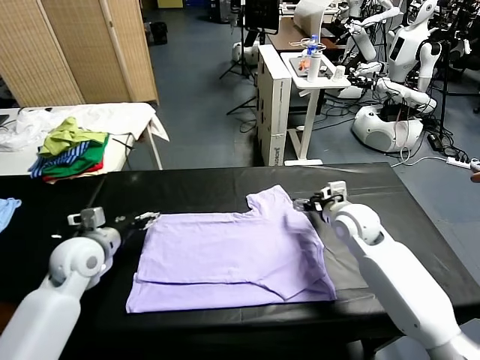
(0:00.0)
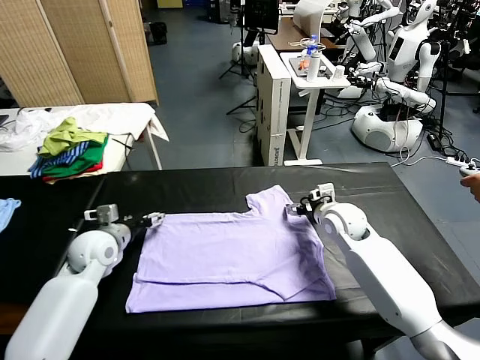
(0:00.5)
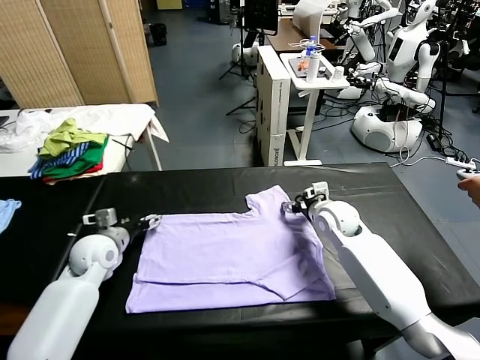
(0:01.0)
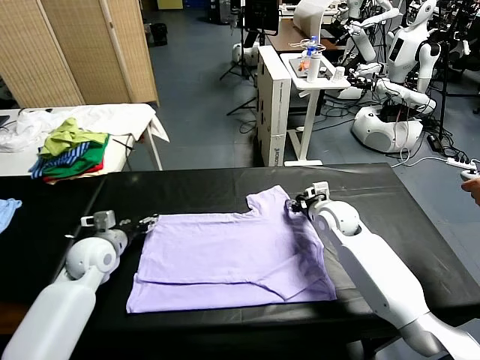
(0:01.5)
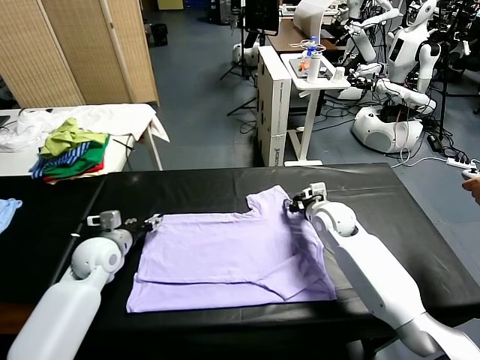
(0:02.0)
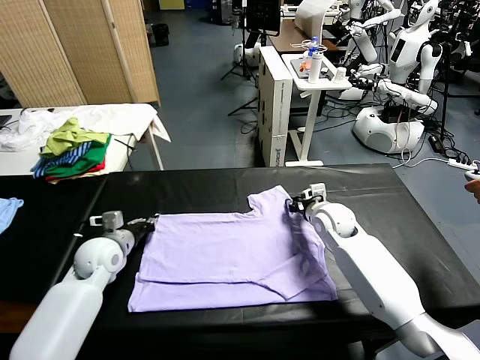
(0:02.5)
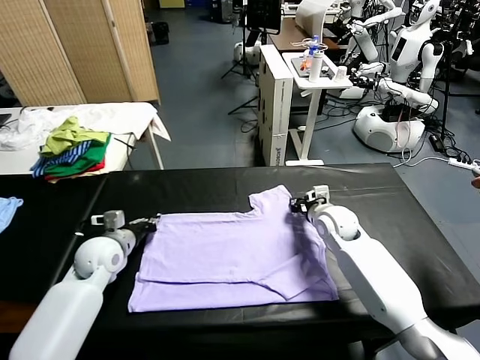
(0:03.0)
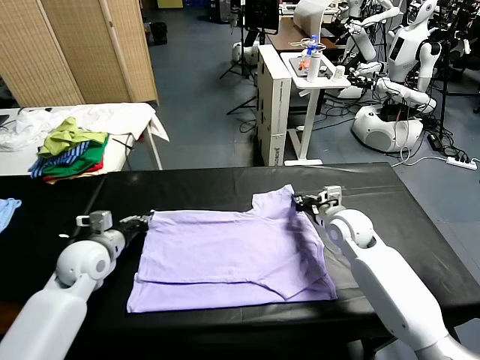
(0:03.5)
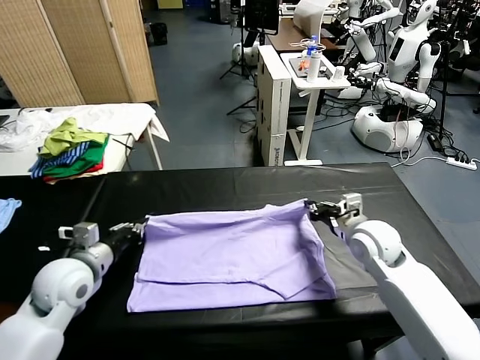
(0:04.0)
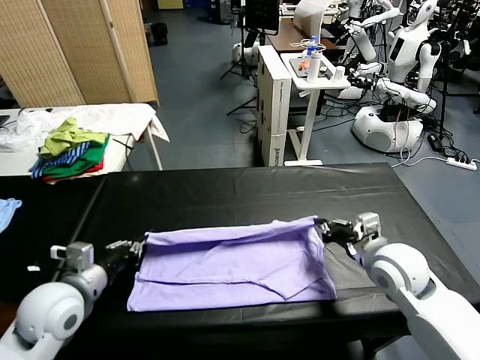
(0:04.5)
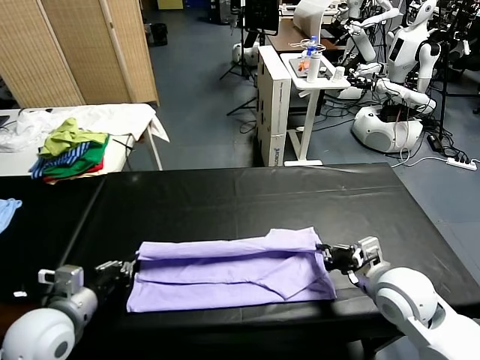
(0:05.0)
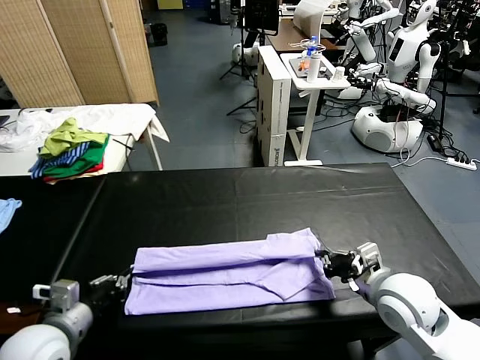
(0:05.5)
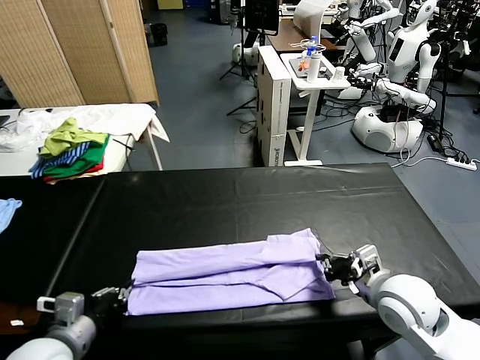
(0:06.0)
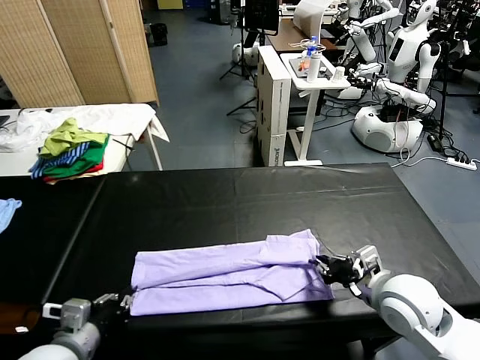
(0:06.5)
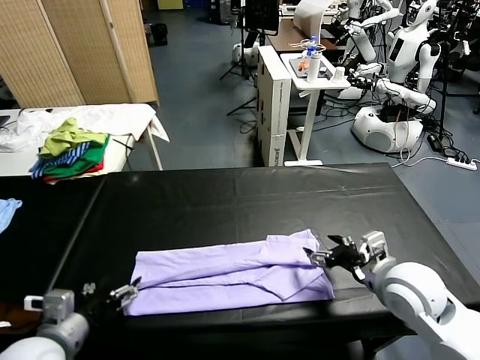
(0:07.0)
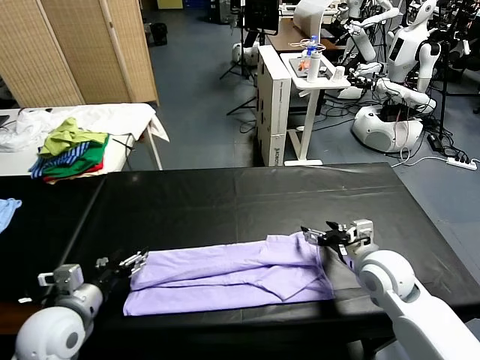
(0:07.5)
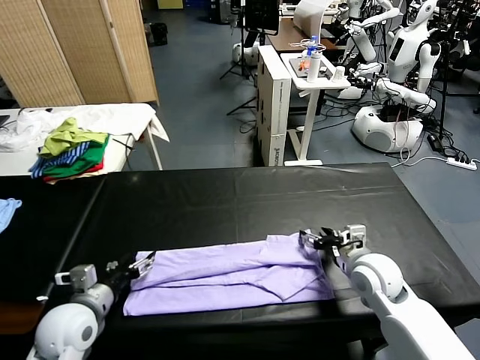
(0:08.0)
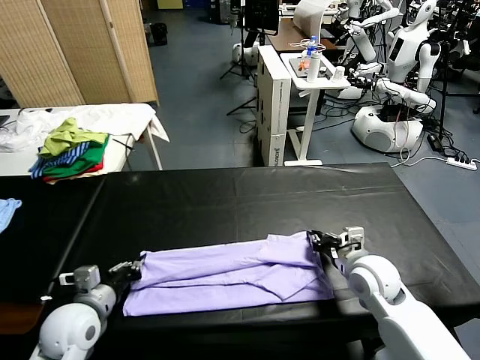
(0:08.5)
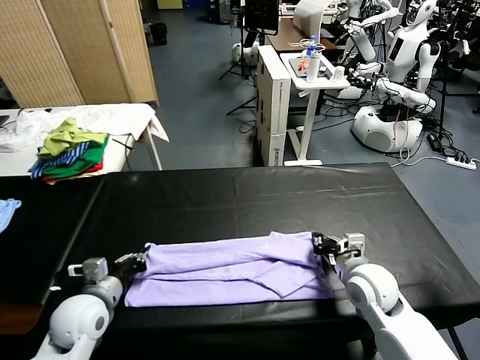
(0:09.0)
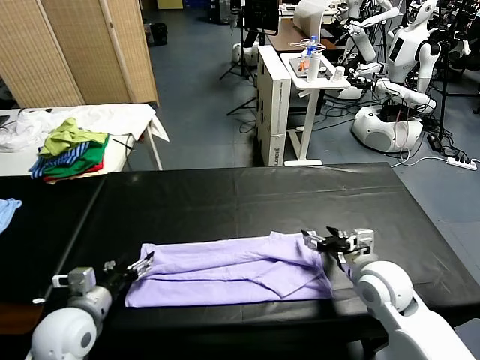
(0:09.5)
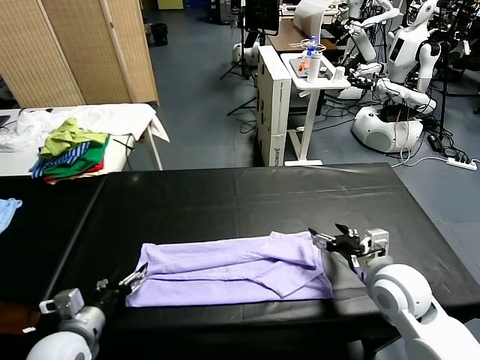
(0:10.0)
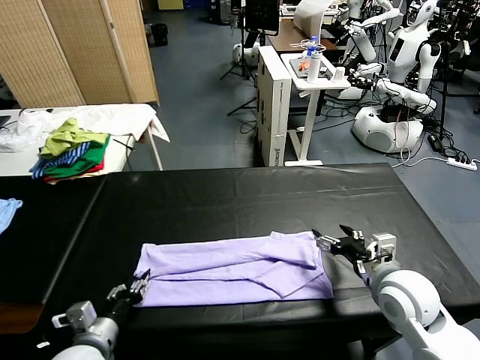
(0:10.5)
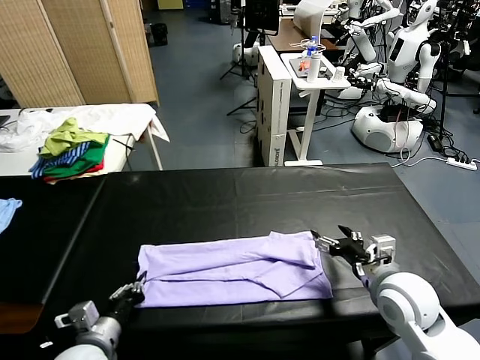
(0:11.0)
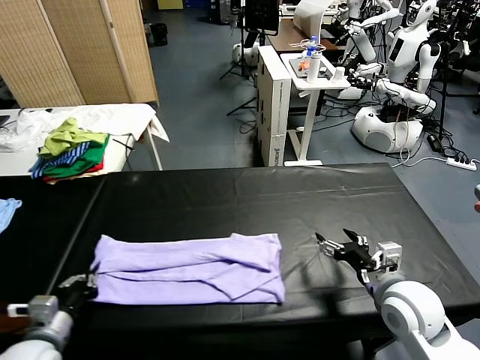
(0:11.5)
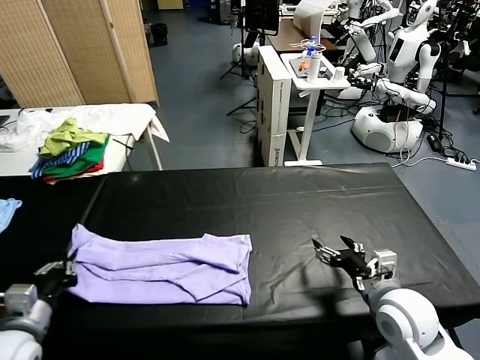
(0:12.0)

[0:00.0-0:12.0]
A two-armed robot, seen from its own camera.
Task of the whole recording: fold and organize the clothes.
Step, 0:00.0 to 0:03.0: use both grippers simultaneously to clamp the upper edge of the clothing fabric.
Step, 0:03.5 to 0:06.5: use both grippers to drag the upper edge of the fabric backward and fold it over the lower edge.
Step, 0:07.0 to 0:10.5: use the left gripper to clamp the left edge of the fabric.
0:00.0 to 0:02.0: The left gripper moves downward, some 5 cm, while the right gripper closes.
0:02.0 to 0:04.0: The left gripper heads backward and upward, covering about 10 cm, and closes its fingers. The right gripper goes some 15 cm backward, upward and to the right, and closes.
0:04.0 to 0:06.0: Both grippers travel together backward, roughly 10 cm.
0:06.0 to 0:08.0: The grippers both shift forward by some 5 cm. The right gripper opens. The left gripper opens up.
0:08.0 to 0:10.0: The left gripper changes place by about 5 cm, and closes, then reopens, while the right gripper moves approximately 5 cm, and closes, then reopens.
0:10.0 to 0:12.0: The left gripper heads to the left, covering about 5 cm, and closes.

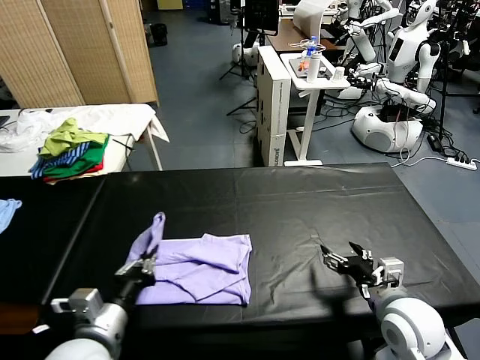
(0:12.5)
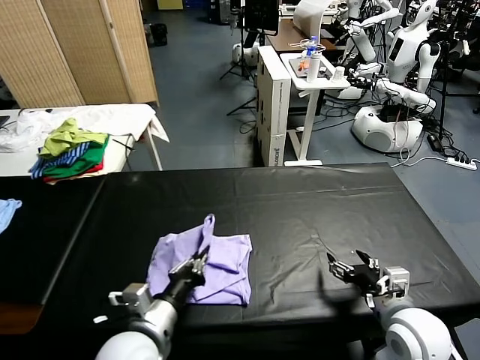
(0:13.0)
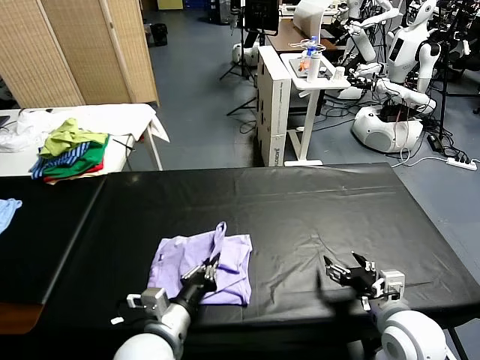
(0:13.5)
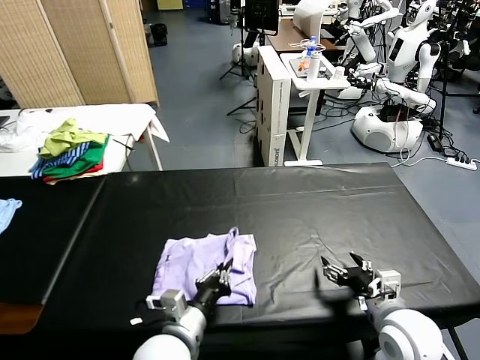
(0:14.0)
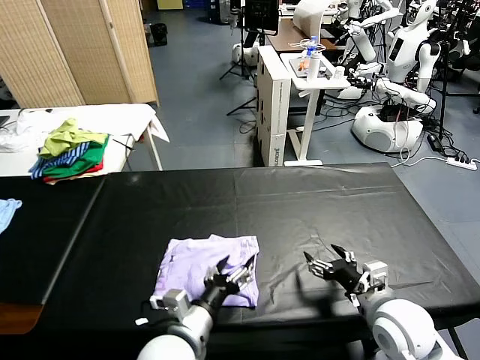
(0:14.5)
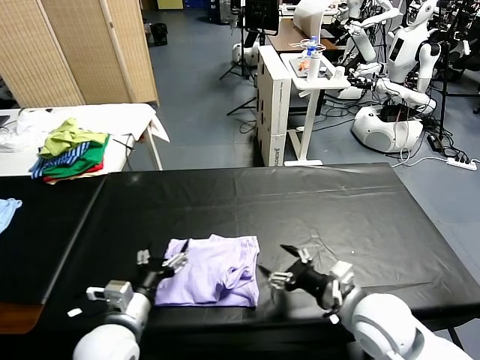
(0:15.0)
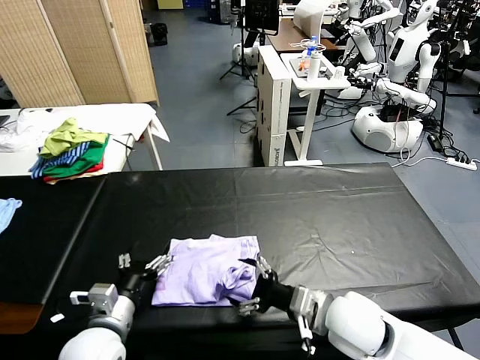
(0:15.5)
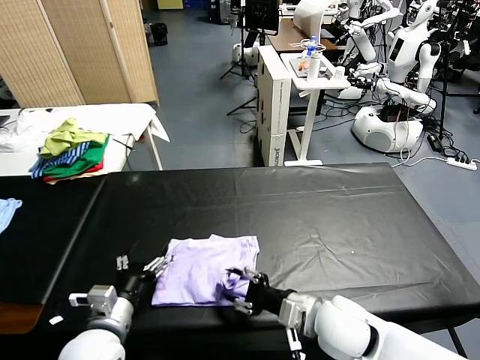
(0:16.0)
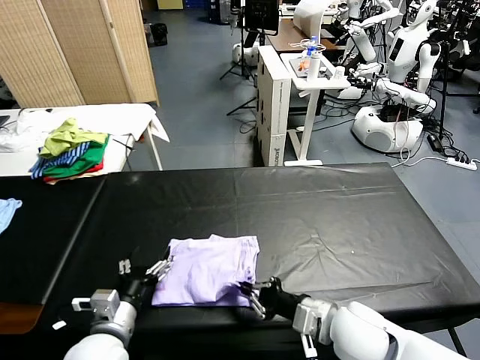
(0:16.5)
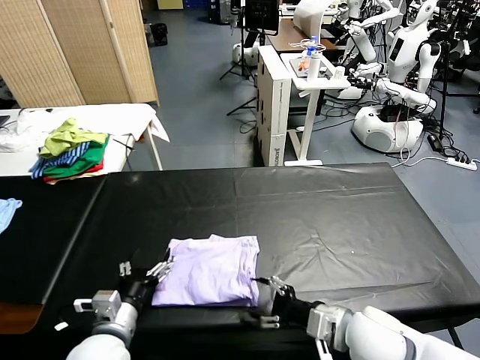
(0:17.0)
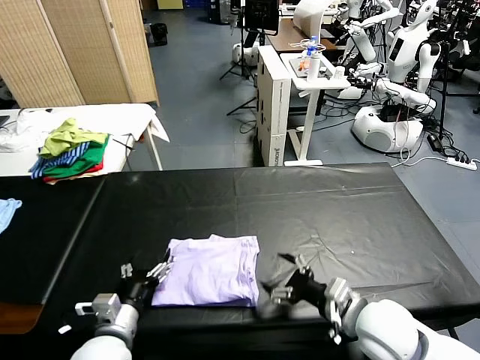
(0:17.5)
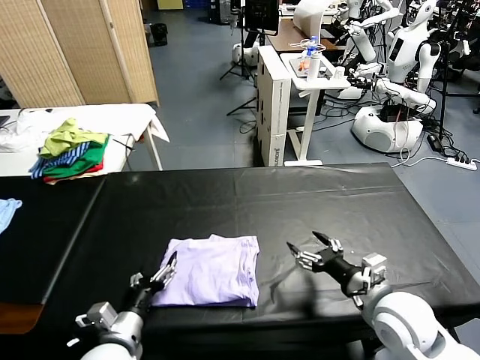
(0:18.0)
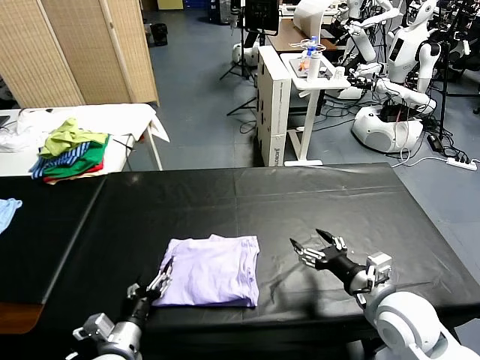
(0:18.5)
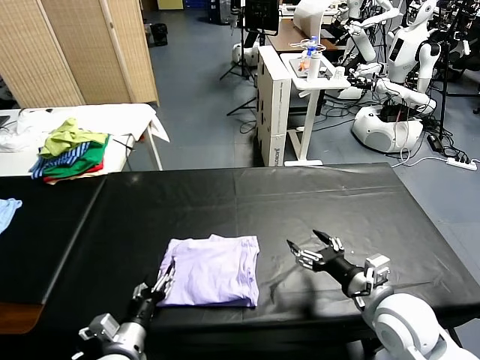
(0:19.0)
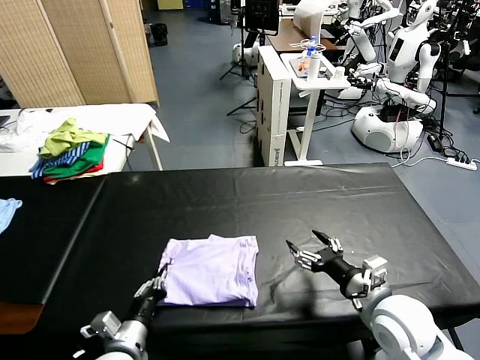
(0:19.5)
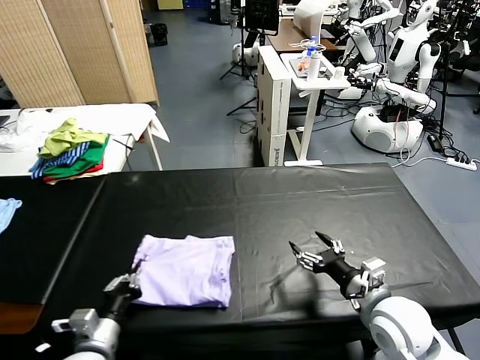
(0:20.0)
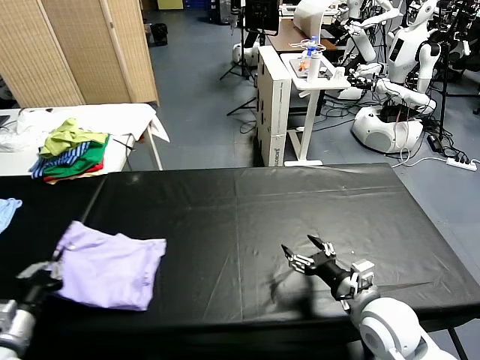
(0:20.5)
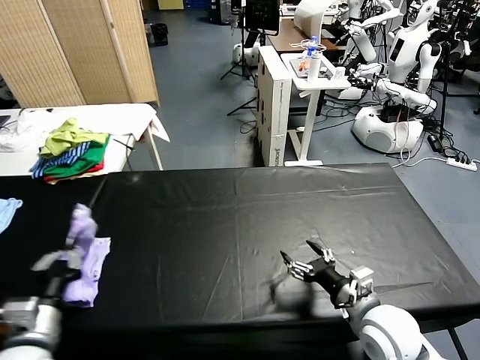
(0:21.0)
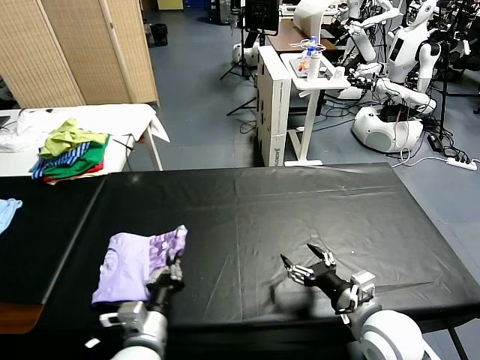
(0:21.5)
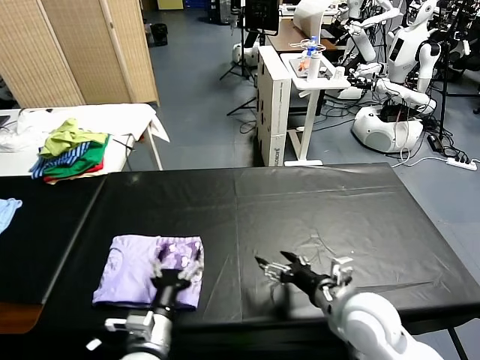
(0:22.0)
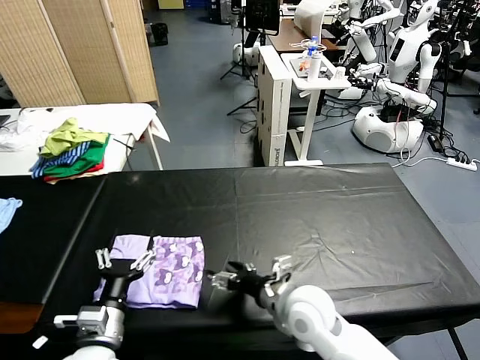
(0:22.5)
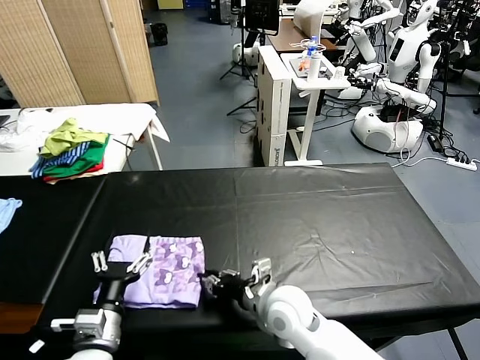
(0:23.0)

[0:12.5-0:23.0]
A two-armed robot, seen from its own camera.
Task of the whole recording: fold and organize the clothes.
Step, 0:12.5 to 0:14.5: use the left gripper to drag the left edge of the fabric to the left and folds it over the right edge.
Step, 0:15.0 to 0:21.5: Flip the folded clothes over with left gripper.
0:12.5 to 0:14.5: The left gripper travels to the right by approximately 10 cm, and opens up.
0:14.5 to 0:16.5: The right gripper shifts roughly 10 cm to the left, and closes, while the left gripper is displaced to the left by approximately 10 cm.
0:16.5 to 0:19.0: The right gripper goes approximately 10 cm to the right, and opens up, while the left gripper travels downward by approximately 5 cm.
0:19.0 to 0:21.0: The left gripper travels upward and to the left by about 15 cm, and closes up.
0:21.0 to 0:23.0: The left gripper moves to the right and downward, some 10 cm, and opens its fingers; the right gripper goes roughly 15 cm to the left, and closes up.

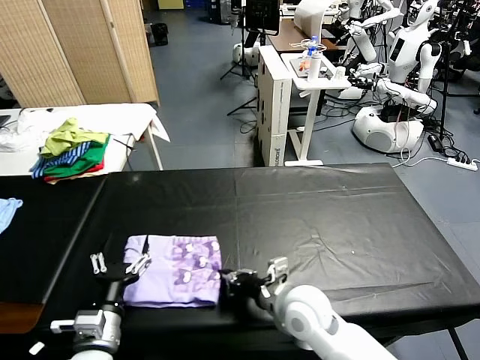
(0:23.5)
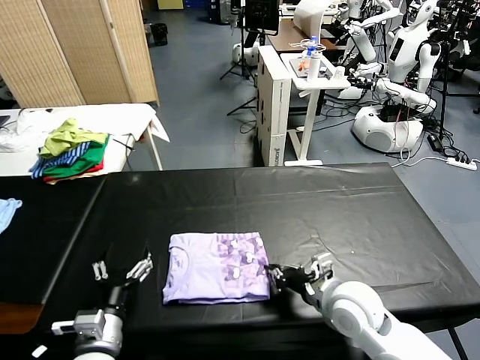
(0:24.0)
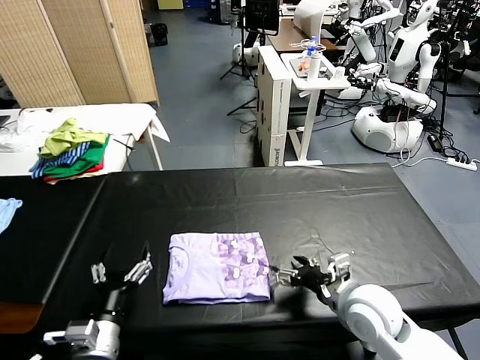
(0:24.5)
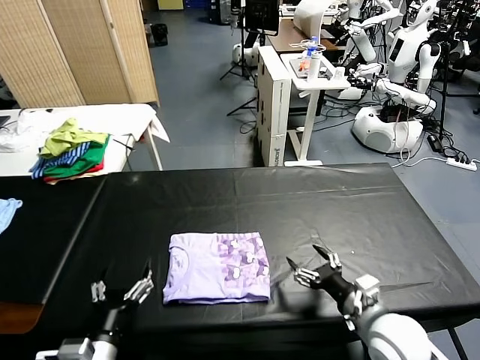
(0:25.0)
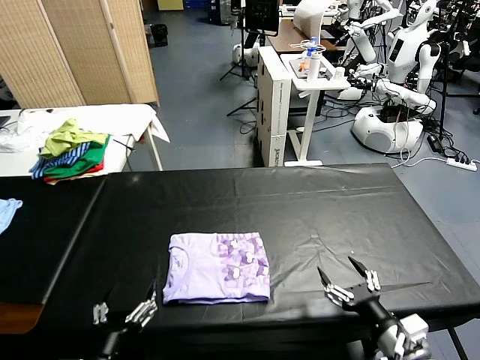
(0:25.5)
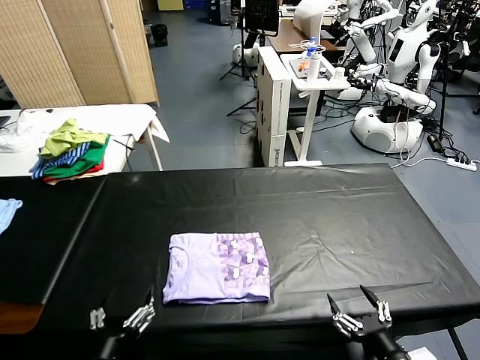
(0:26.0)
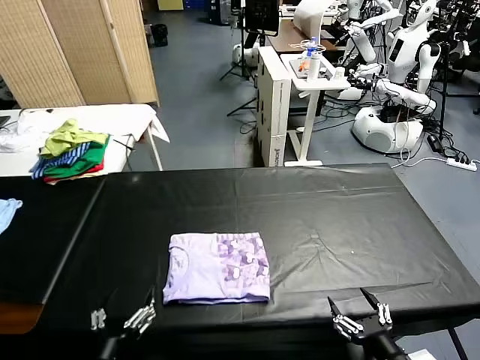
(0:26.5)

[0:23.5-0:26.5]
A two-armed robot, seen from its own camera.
Task of the whole recording: fold and organize the clothes.
0:23.5 to 0:25.0: The right gripper heads to the right, covering some 15 cm, and opens up.
0:25.0 to 0:26.5: The right gripper goes about 15 cm backward. Meanwhile the left gripper moves some 5 cm.
